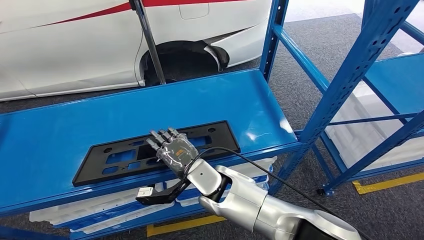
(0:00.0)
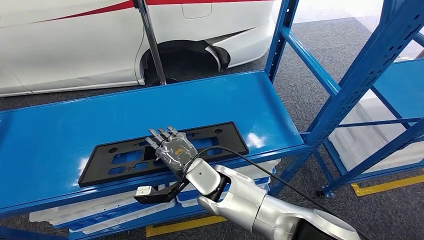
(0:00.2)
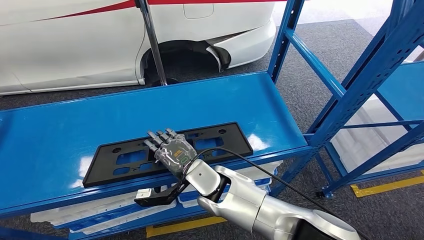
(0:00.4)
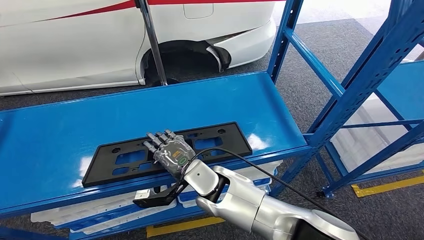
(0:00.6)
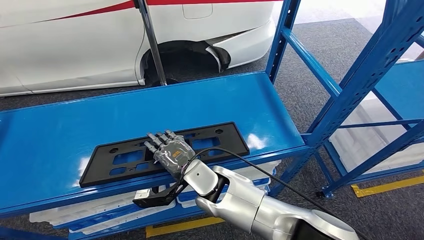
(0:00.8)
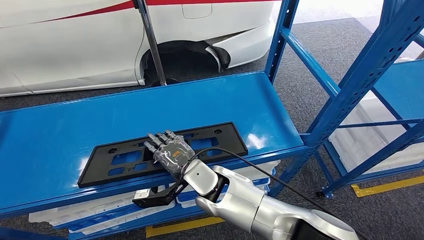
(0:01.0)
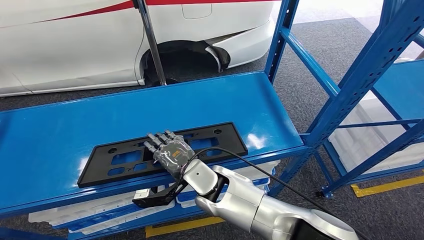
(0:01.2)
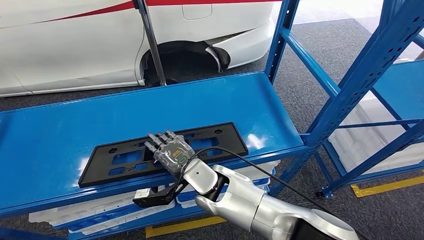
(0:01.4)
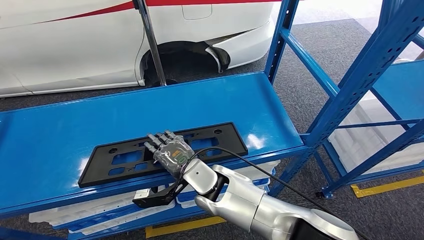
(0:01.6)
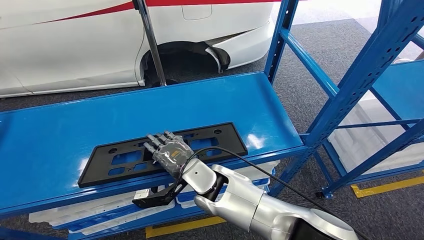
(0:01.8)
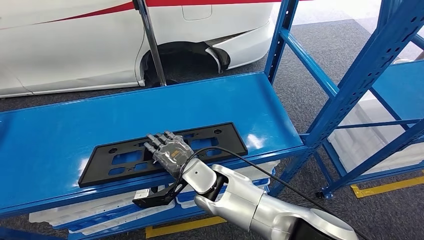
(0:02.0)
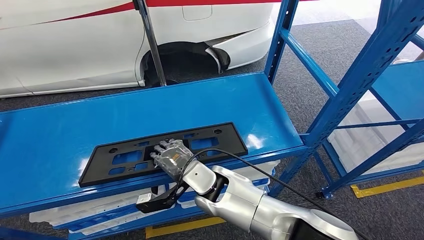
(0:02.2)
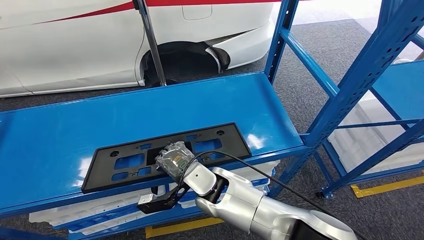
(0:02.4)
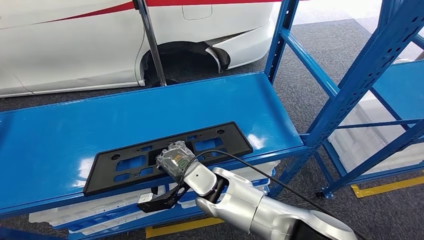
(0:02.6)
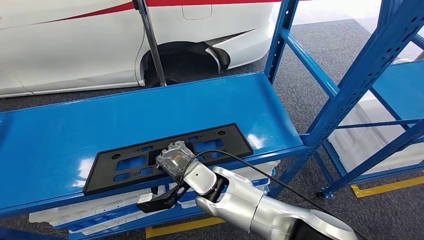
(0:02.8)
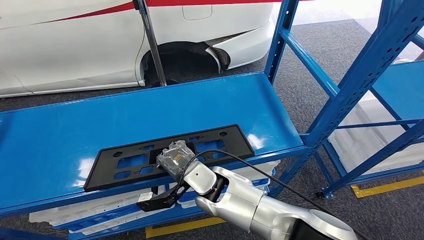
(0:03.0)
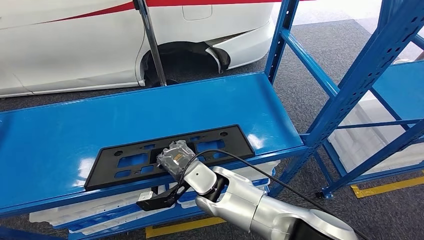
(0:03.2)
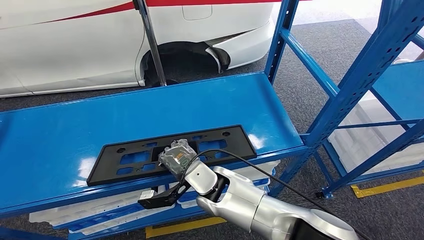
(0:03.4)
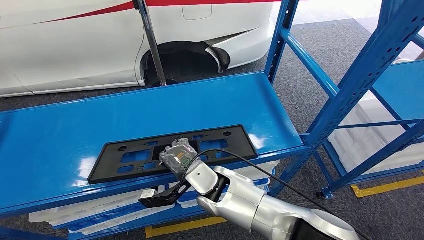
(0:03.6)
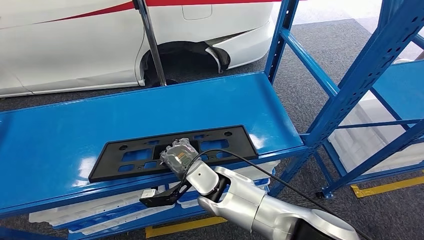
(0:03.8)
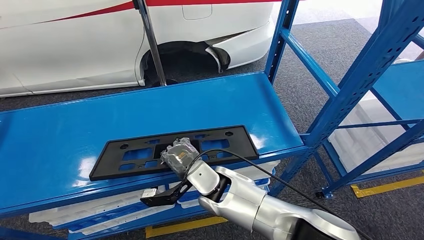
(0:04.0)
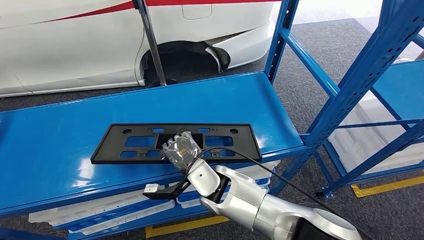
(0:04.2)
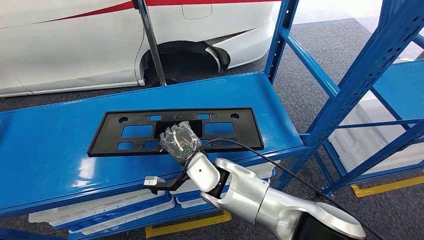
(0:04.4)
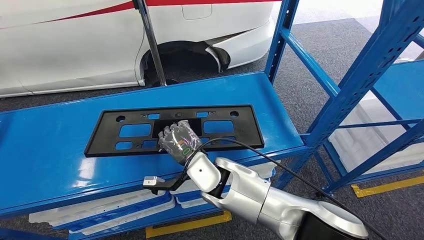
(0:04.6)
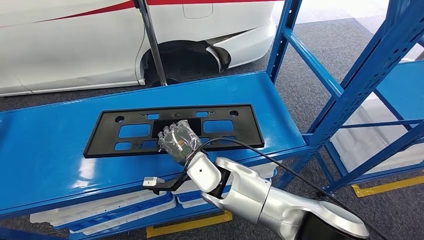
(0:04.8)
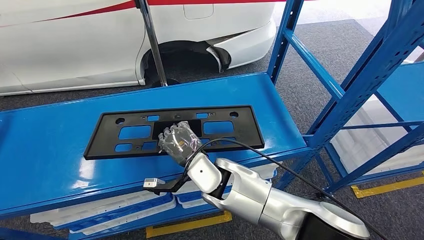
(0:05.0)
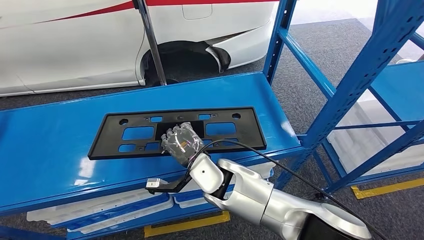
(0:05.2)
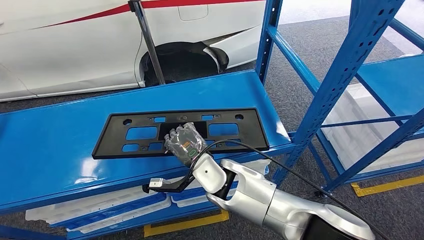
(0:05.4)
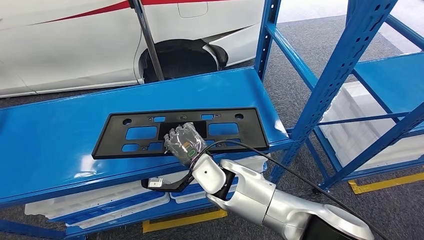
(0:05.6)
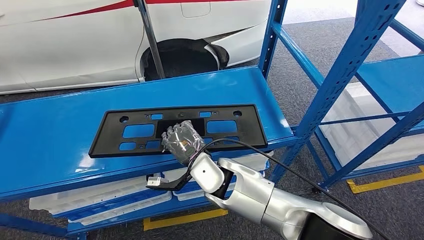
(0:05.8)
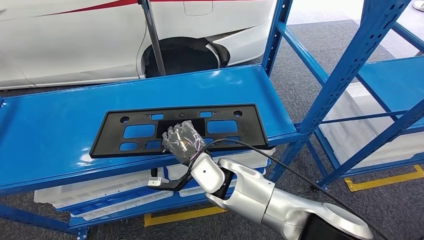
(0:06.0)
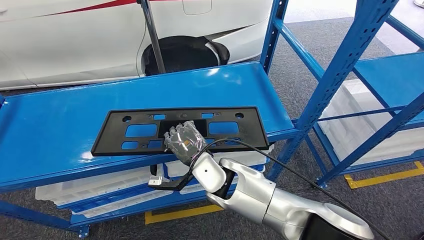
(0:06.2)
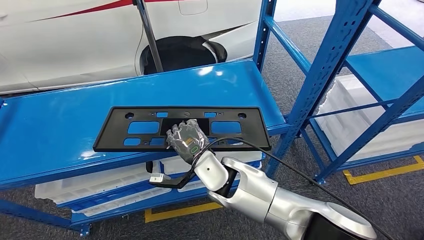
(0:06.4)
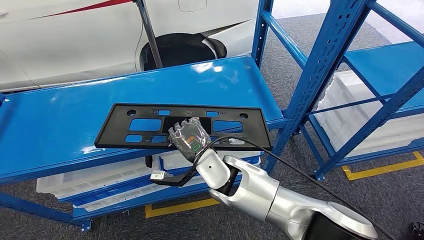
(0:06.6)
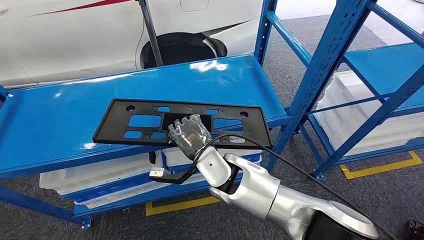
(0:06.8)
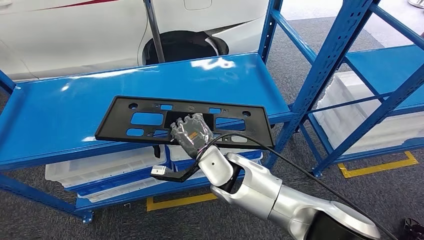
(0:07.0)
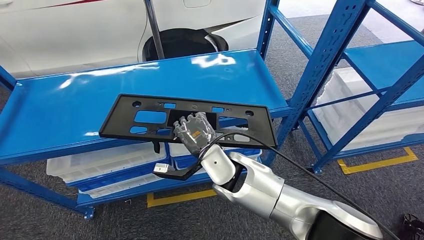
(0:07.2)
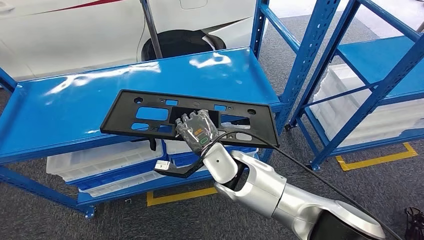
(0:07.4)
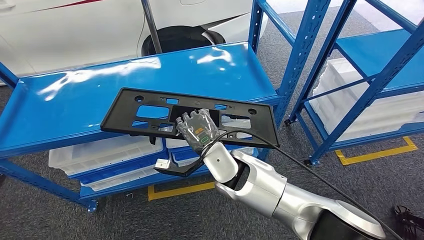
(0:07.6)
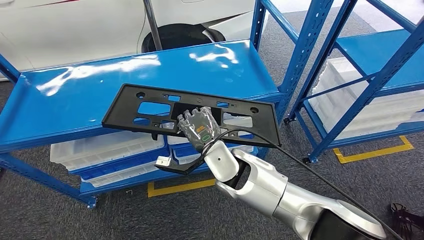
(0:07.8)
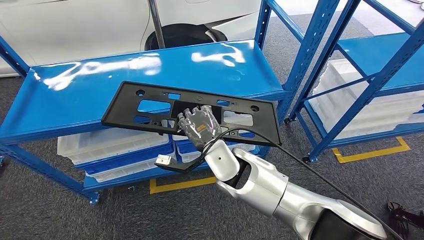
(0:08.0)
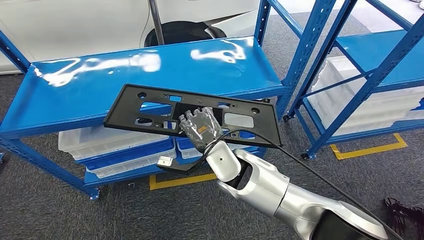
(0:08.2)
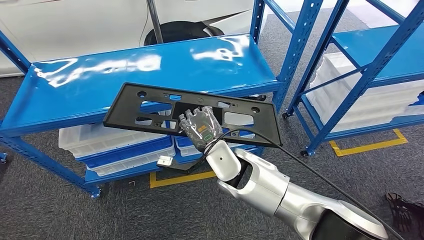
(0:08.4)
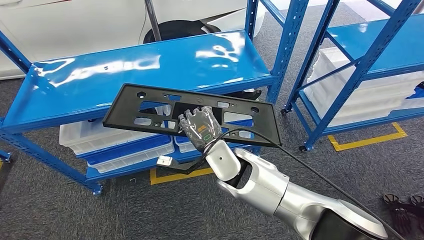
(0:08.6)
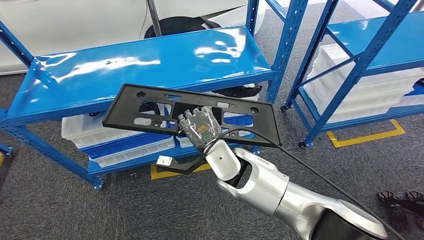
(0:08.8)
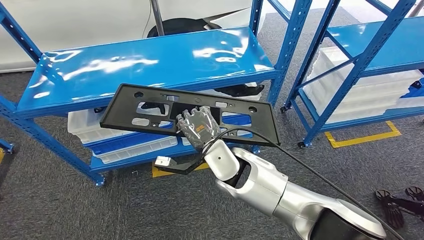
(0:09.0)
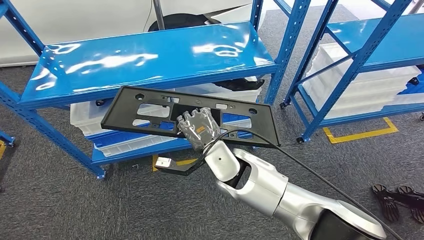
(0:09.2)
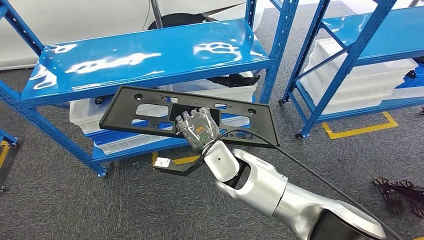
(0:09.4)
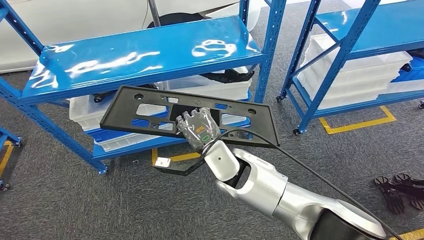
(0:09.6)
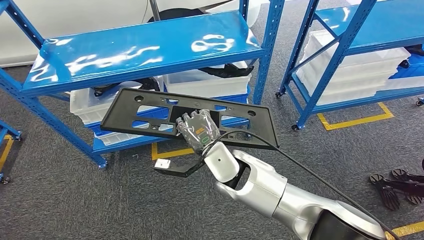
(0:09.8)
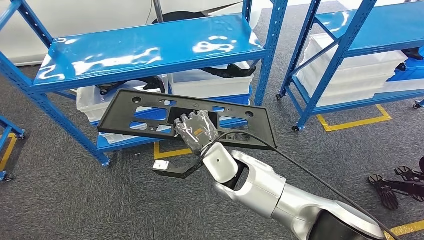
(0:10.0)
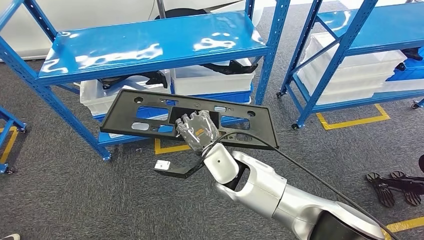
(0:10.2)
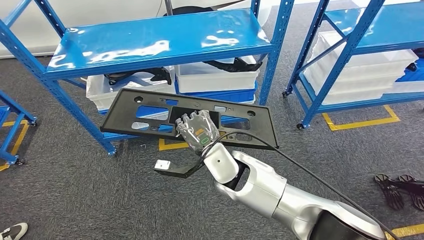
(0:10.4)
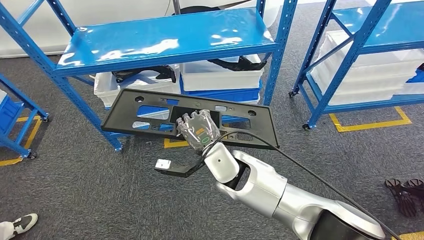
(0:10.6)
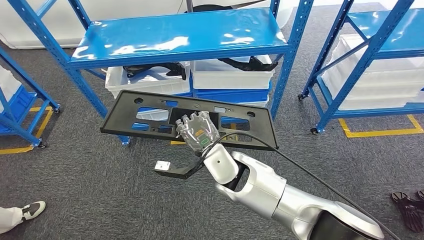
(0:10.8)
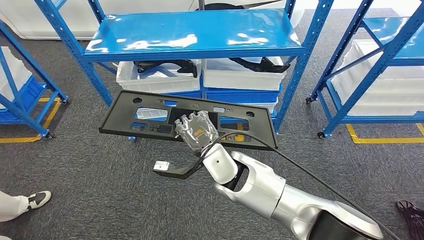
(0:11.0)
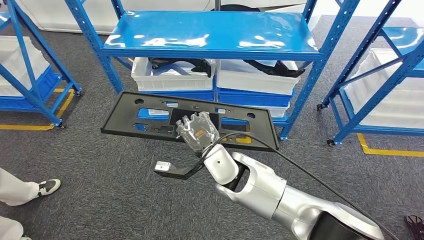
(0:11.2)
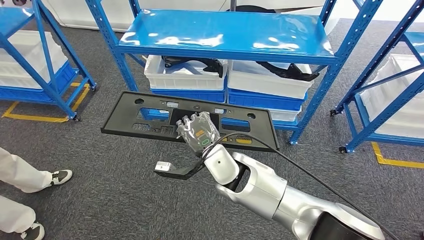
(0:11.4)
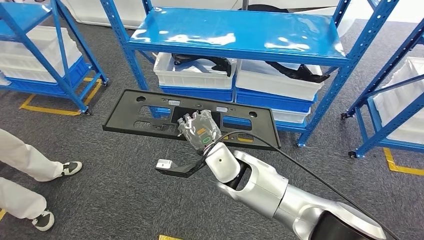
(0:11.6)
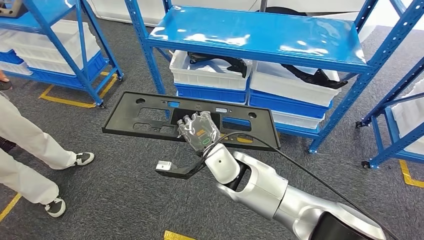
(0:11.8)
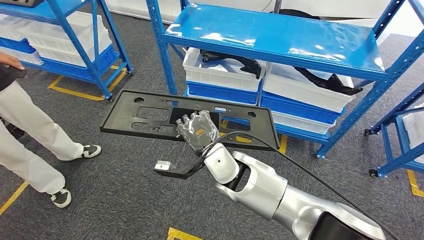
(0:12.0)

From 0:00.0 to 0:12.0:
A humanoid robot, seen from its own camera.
Step, from 0:00.0 to 0:05.0: Pick up the large material from the shelf.
From 0:01.6 to 0:03.0: Neither hand changes place.

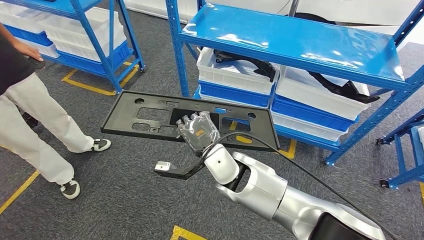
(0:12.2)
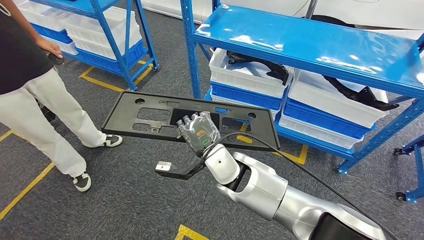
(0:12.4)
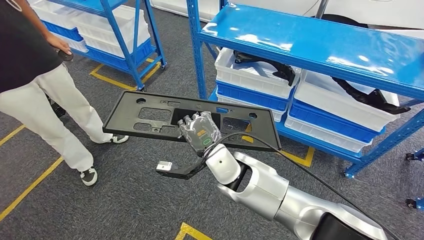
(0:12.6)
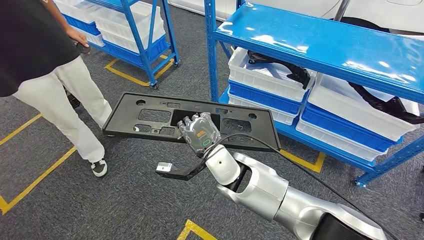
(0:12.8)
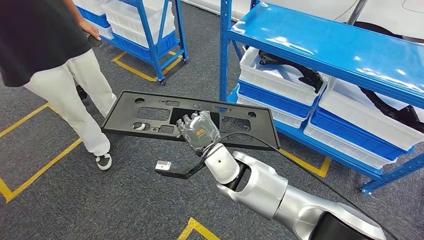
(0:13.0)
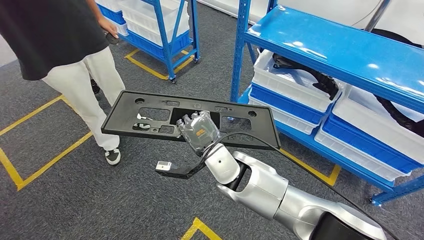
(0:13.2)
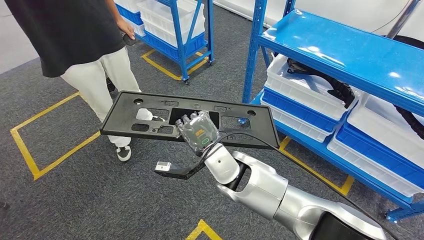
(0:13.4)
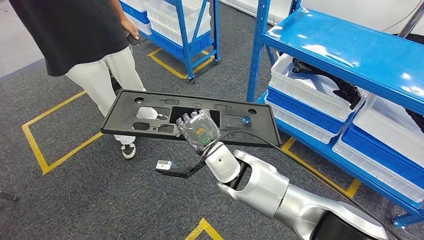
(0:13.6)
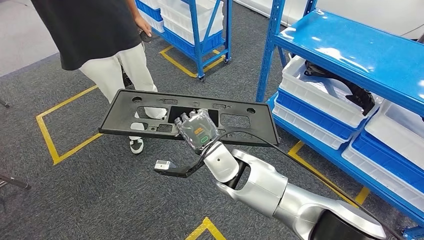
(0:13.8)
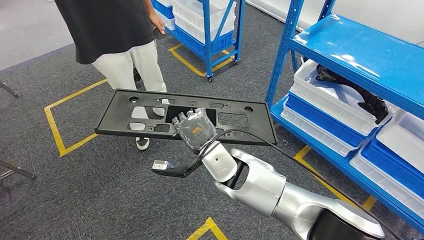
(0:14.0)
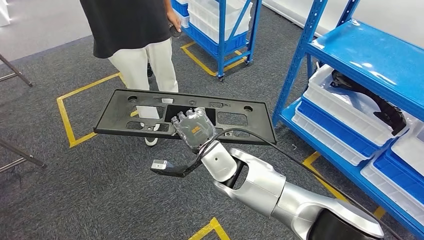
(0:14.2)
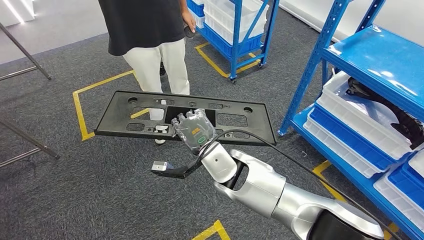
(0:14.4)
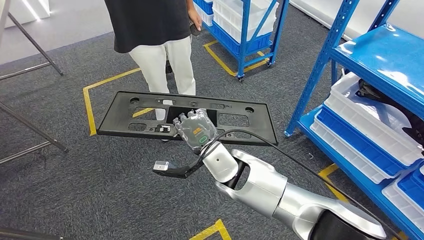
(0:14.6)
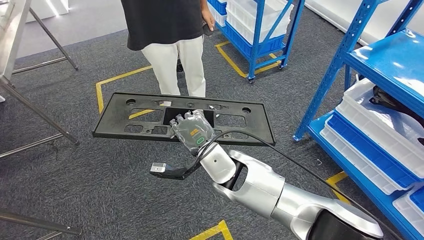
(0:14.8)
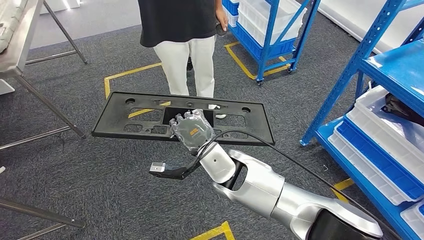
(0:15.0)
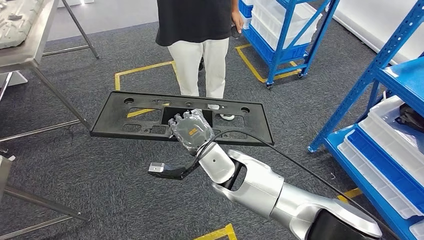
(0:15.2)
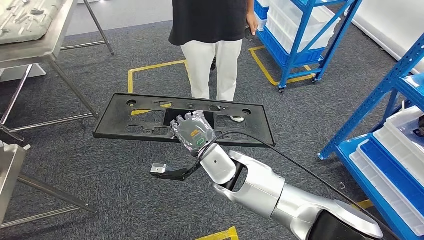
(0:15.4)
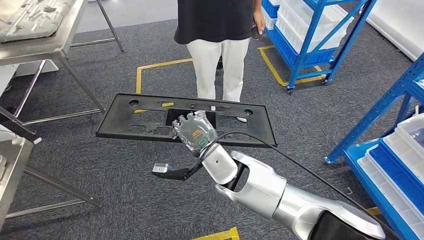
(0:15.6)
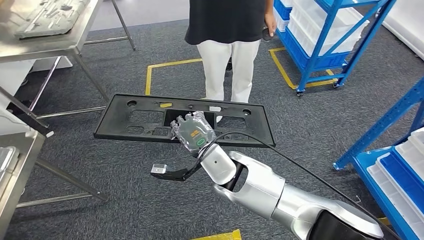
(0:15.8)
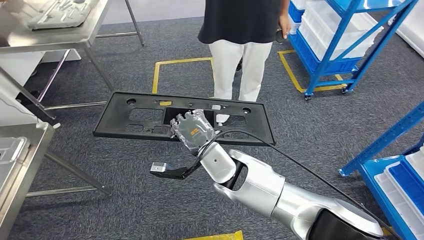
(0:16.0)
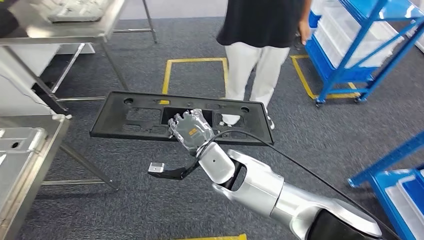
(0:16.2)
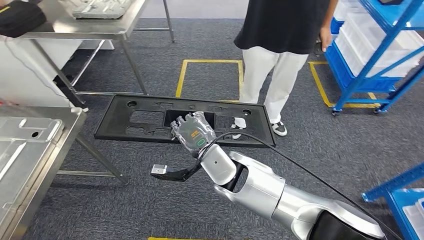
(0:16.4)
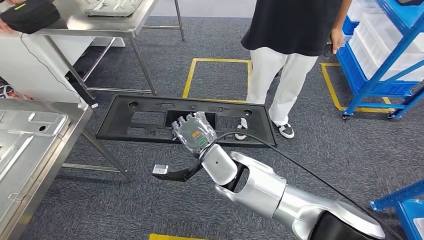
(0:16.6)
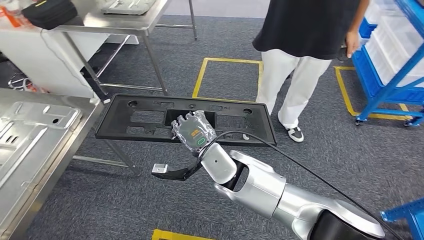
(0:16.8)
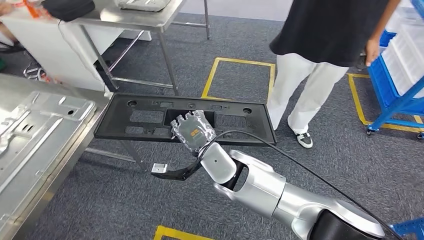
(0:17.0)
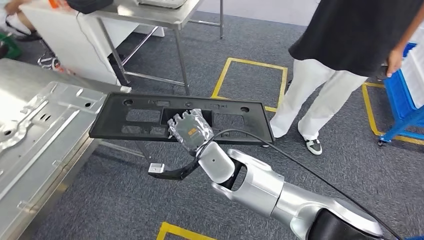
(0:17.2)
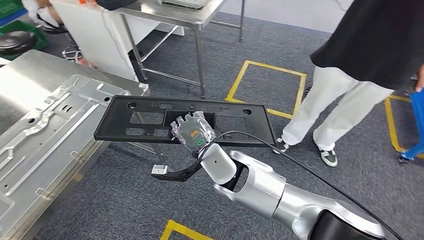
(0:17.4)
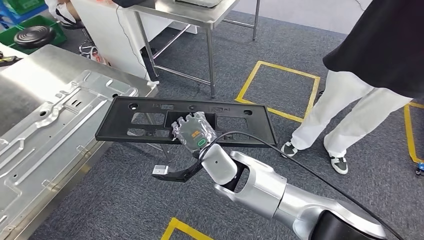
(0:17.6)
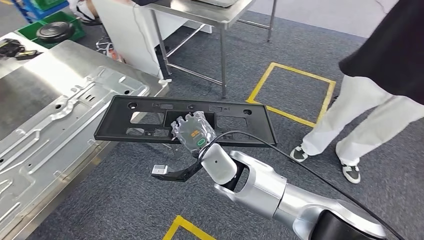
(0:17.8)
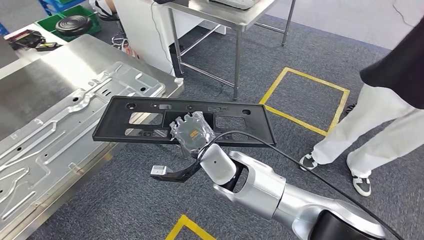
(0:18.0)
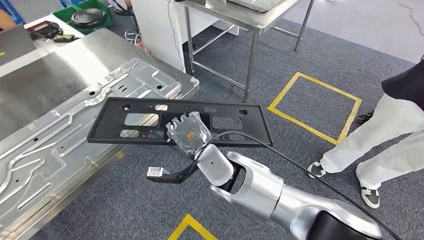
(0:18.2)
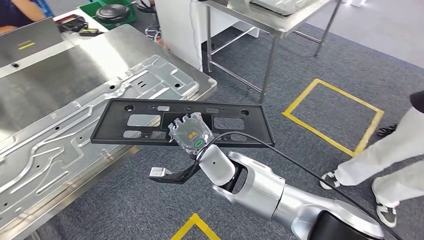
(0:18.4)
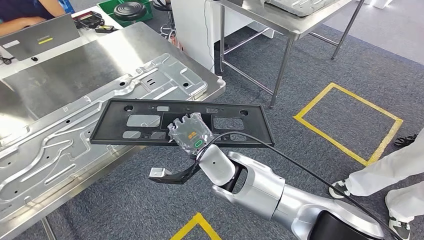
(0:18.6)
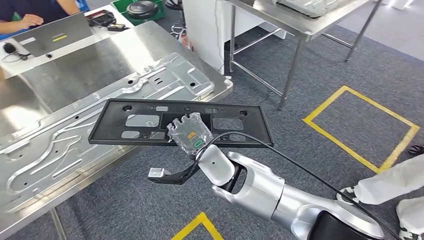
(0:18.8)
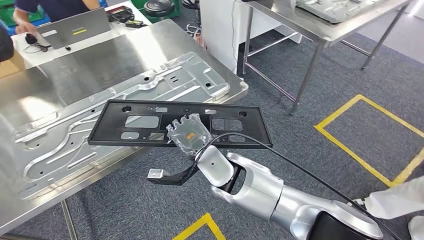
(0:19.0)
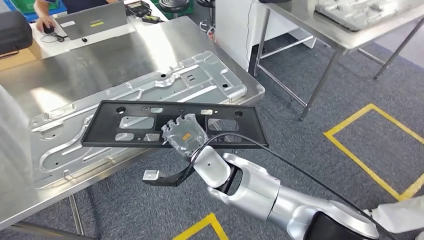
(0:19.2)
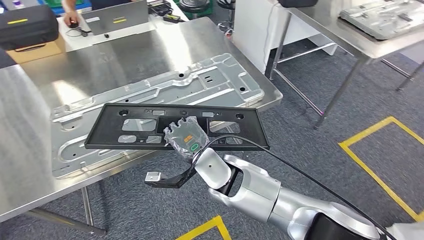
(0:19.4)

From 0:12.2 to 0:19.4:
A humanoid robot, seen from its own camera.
Step, from 0:12.2 to 0:19.2: Move the large material to the workbench.
